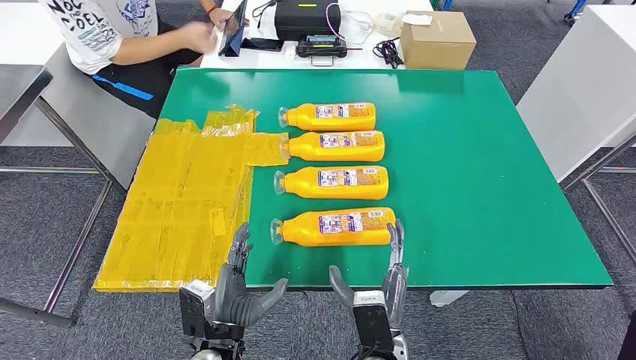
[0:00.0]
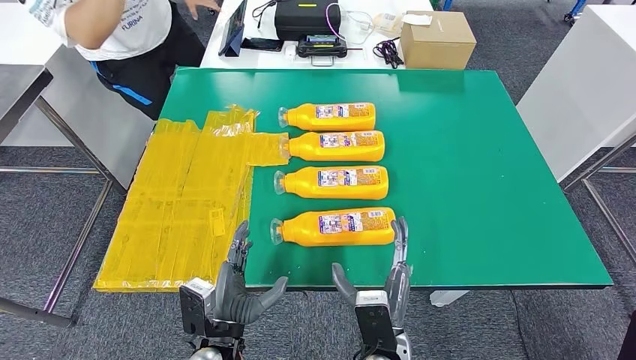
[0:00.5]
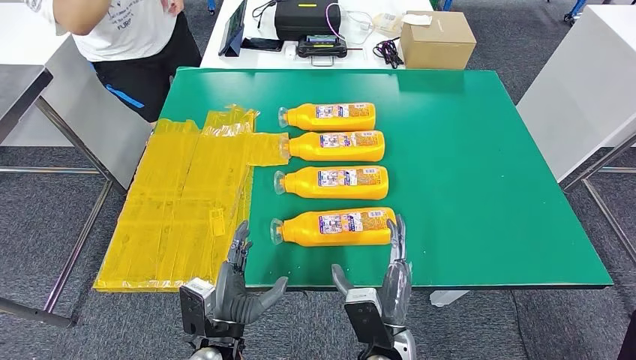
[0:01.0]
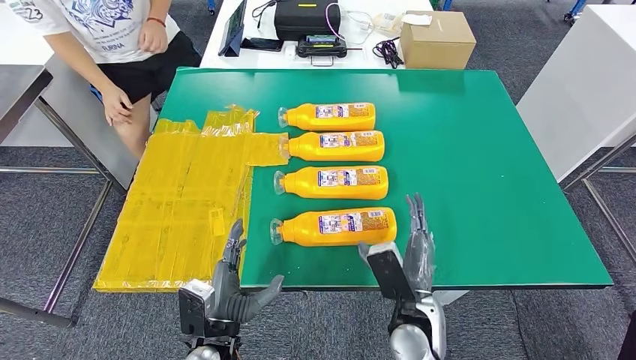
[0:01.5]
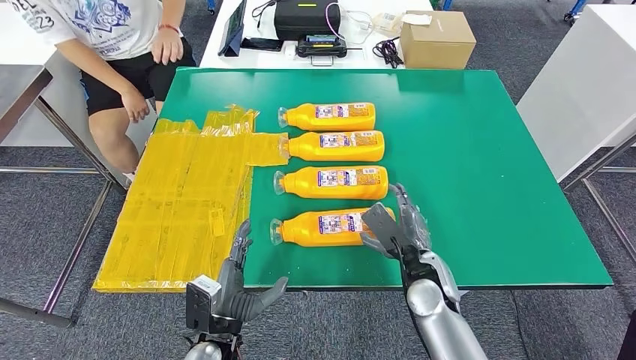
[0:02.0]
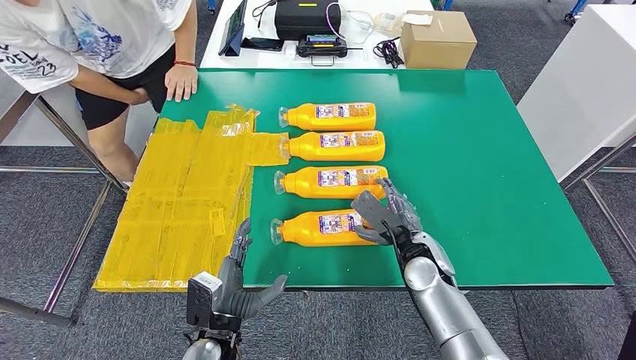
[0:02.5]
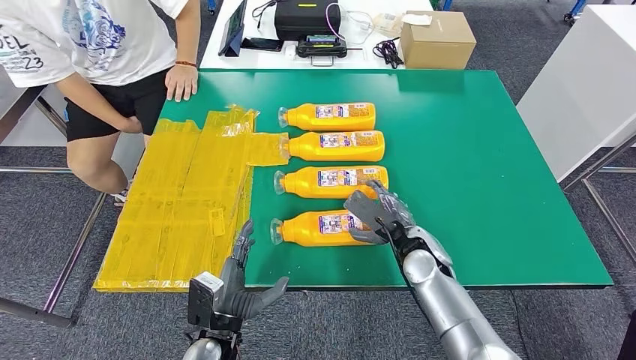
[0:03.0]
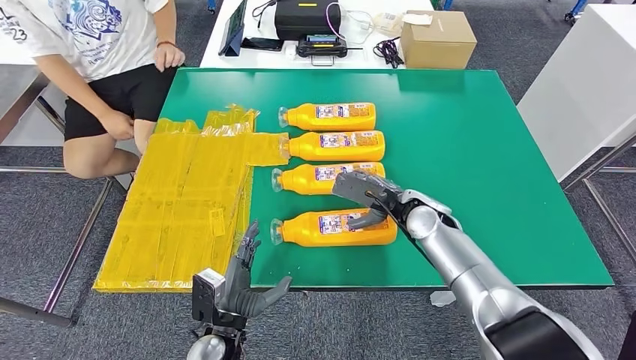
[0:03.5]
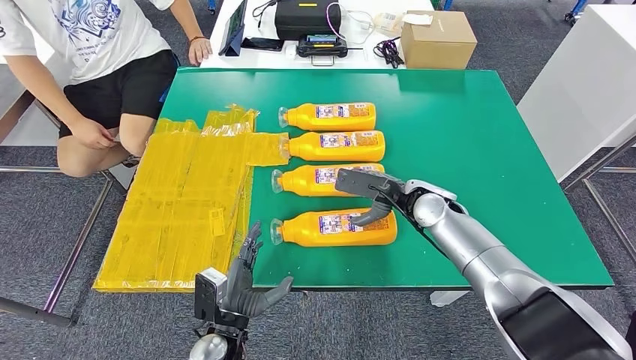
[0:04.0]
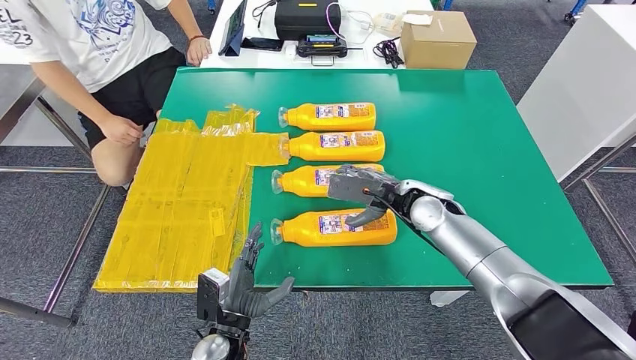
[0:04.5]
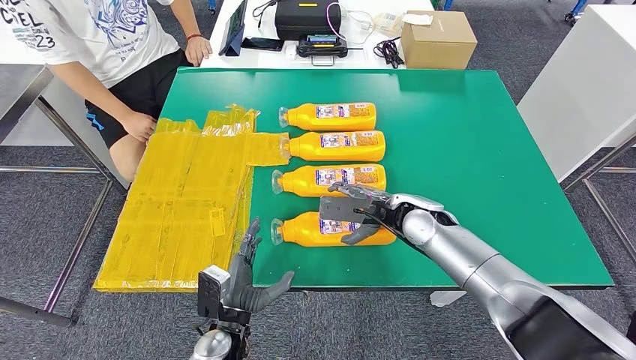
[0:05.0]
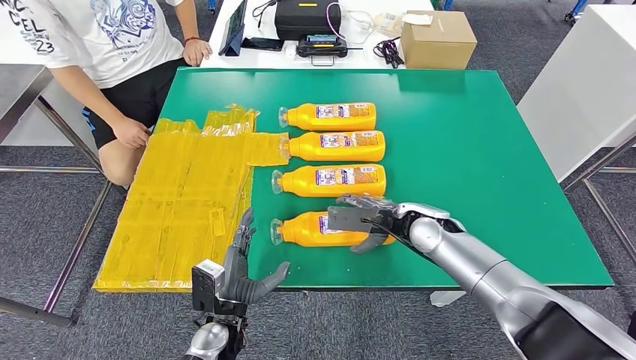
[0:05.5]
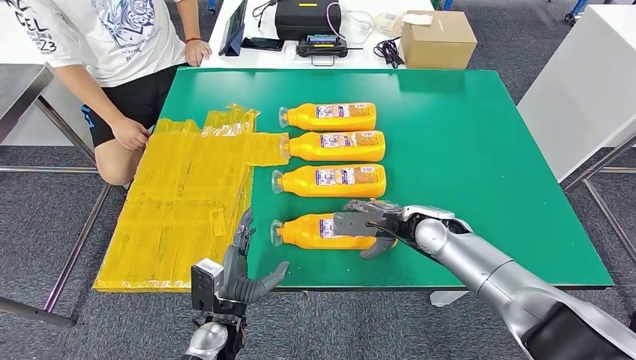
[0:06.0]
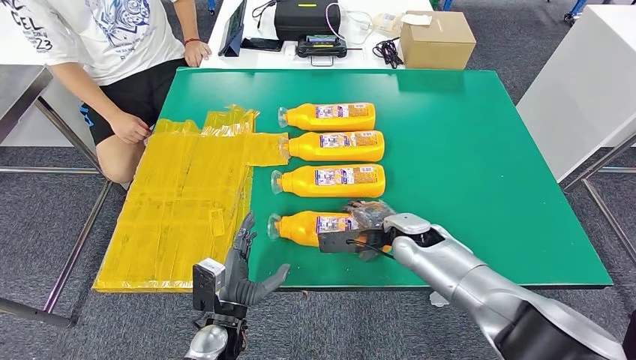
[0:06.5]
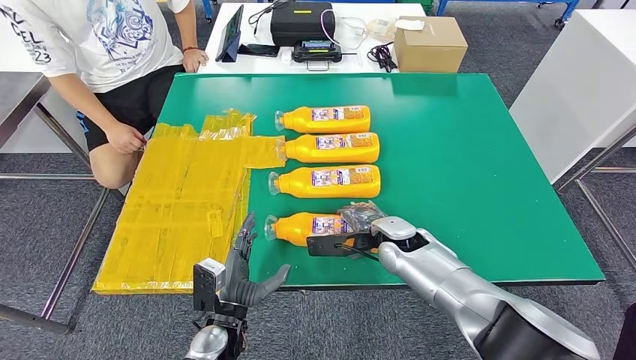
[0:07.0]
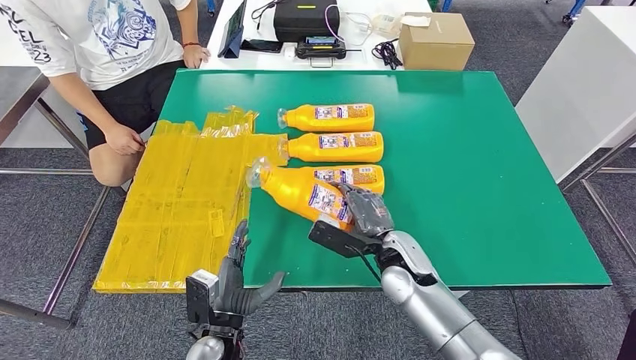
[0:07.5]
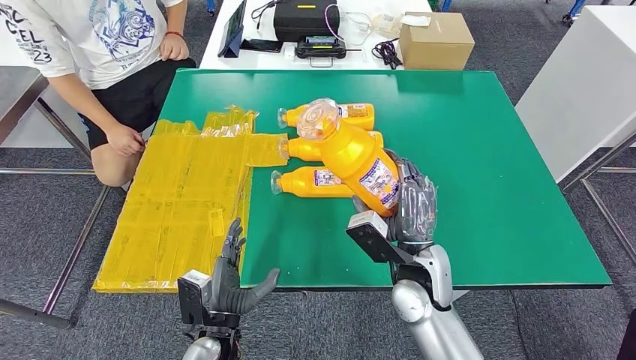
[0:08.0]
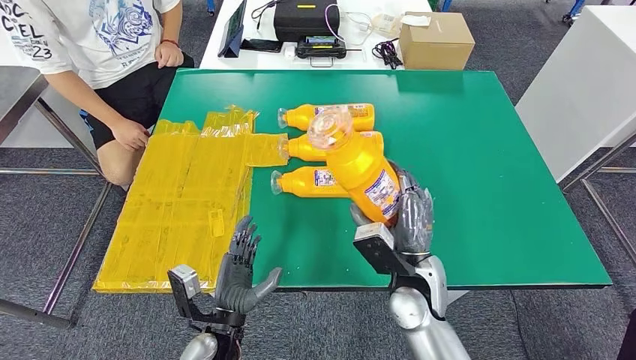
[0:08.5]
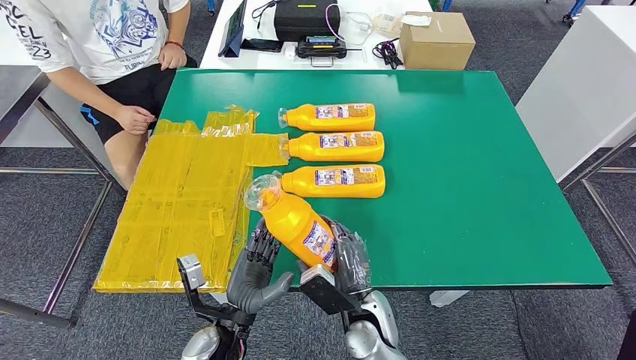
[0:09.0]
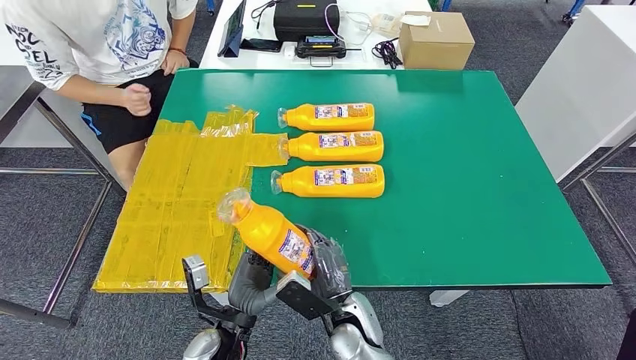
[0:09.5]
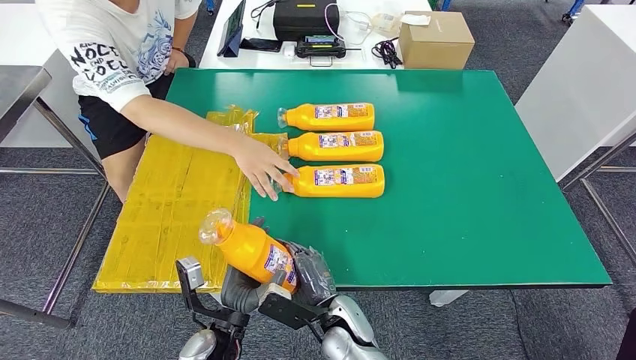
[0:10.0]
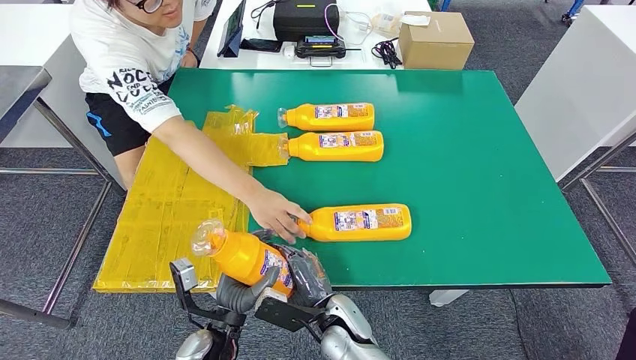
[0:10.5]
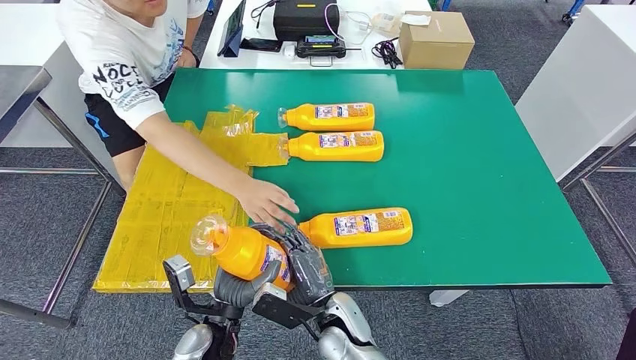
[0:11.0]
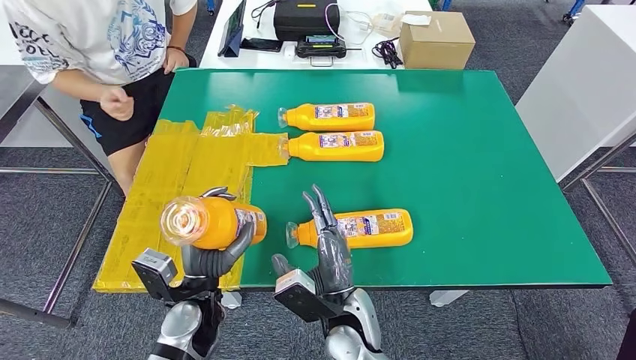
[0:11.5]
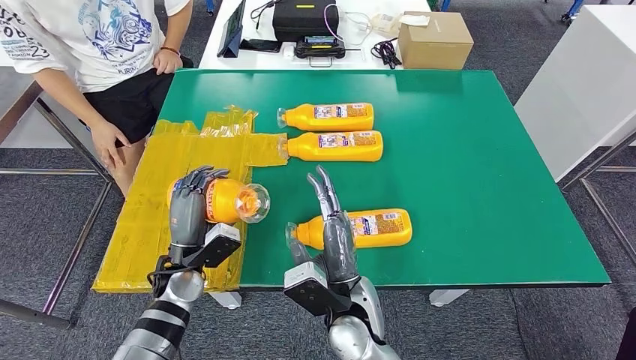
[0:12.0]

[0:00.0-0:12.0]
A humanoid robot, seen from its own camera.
Step, 0:00.0 to 0:09.0: Take the fast-moving consumer goods bottle from the table.
0:04.0 to 0:06.0: The hands move only a little.

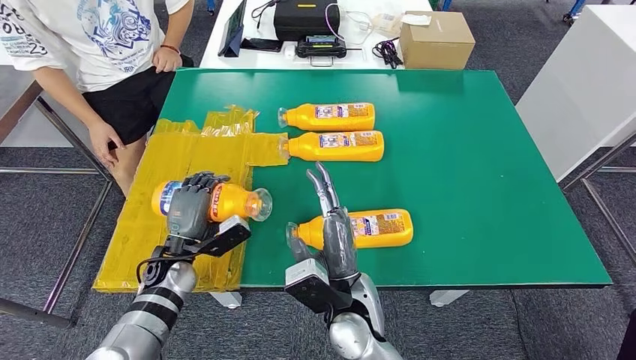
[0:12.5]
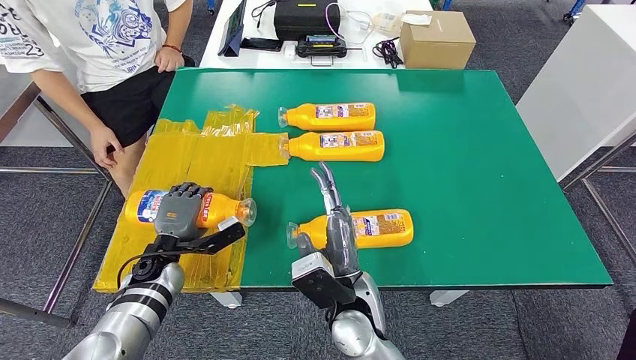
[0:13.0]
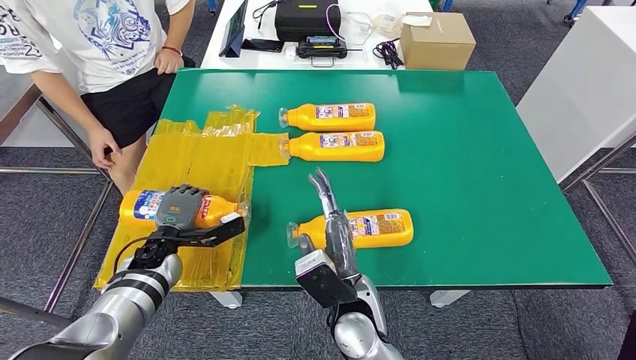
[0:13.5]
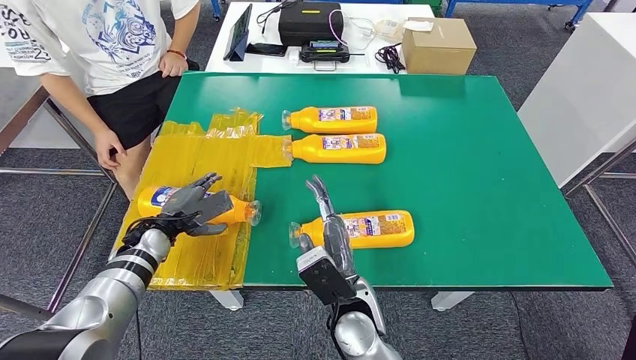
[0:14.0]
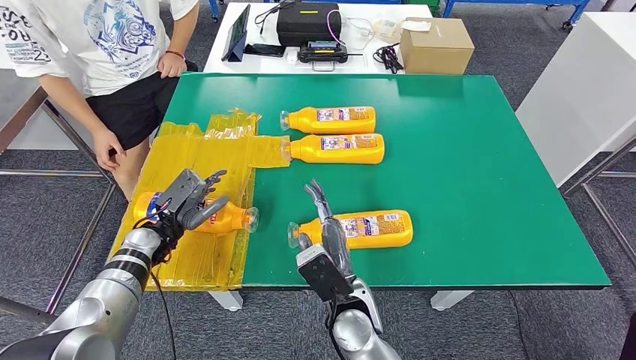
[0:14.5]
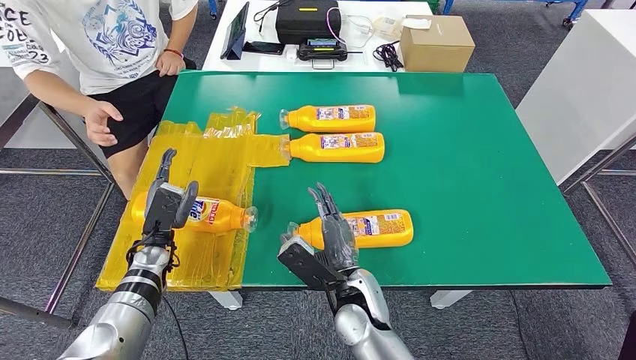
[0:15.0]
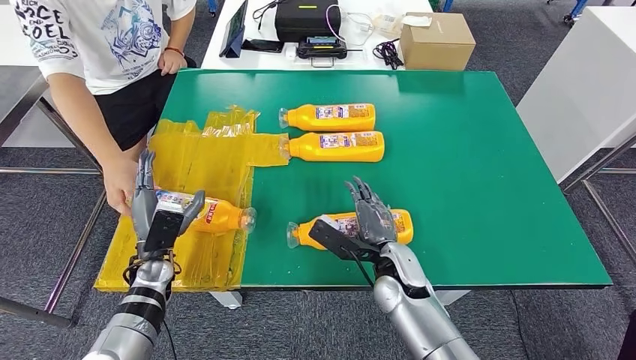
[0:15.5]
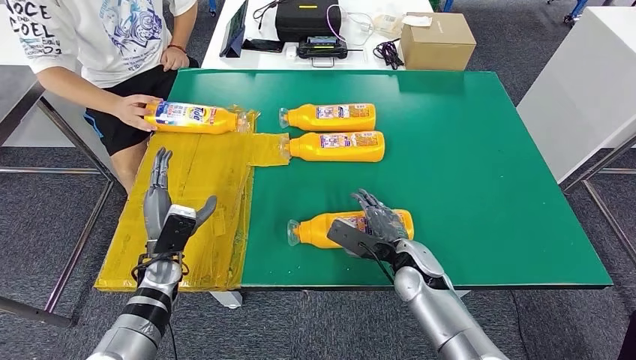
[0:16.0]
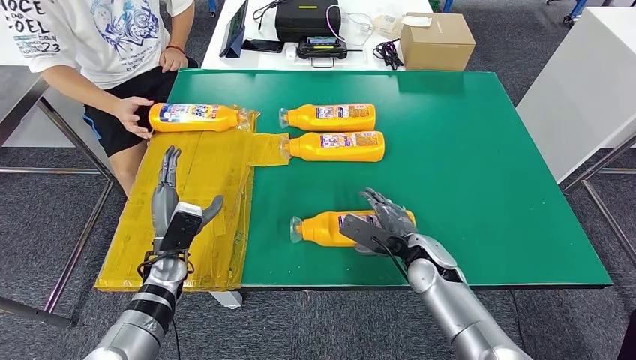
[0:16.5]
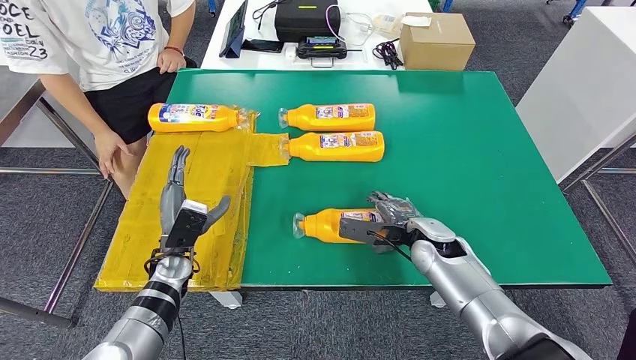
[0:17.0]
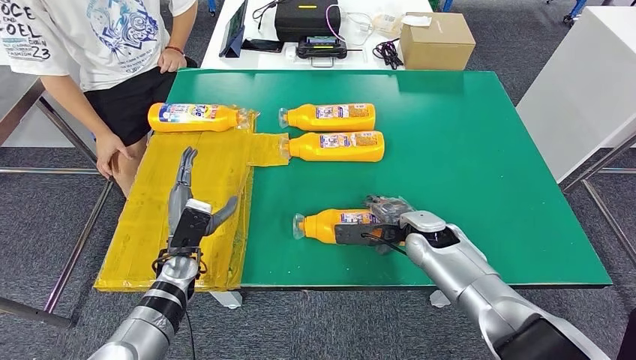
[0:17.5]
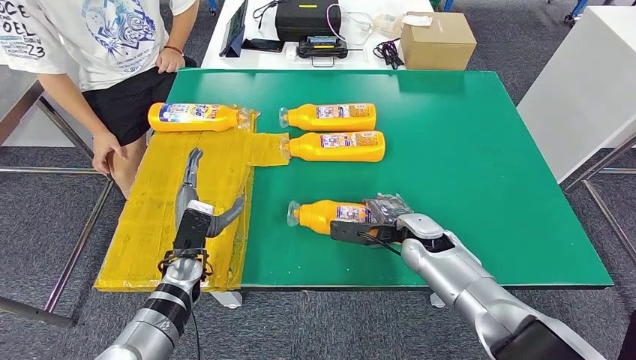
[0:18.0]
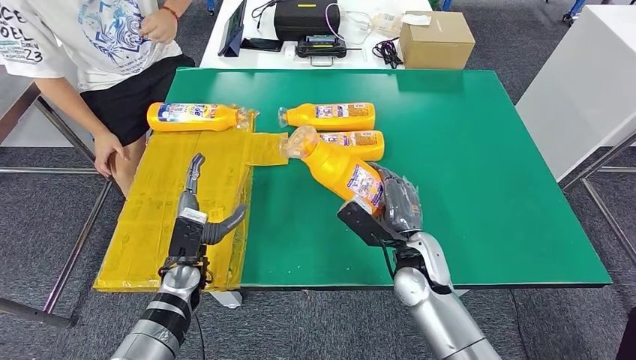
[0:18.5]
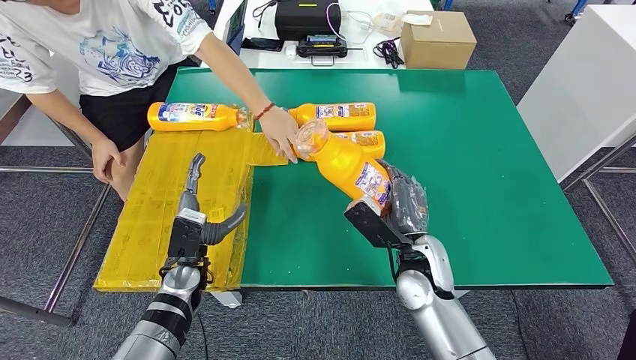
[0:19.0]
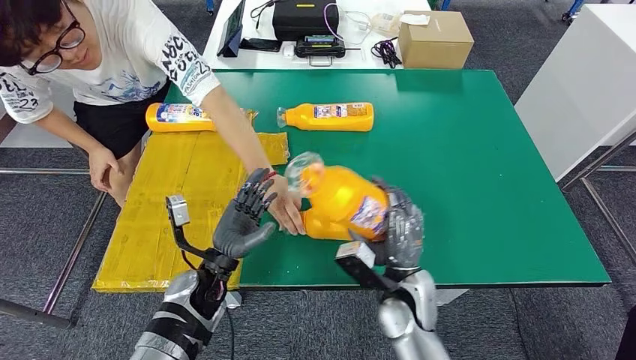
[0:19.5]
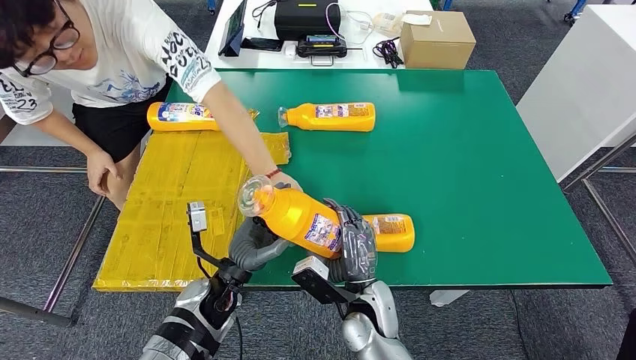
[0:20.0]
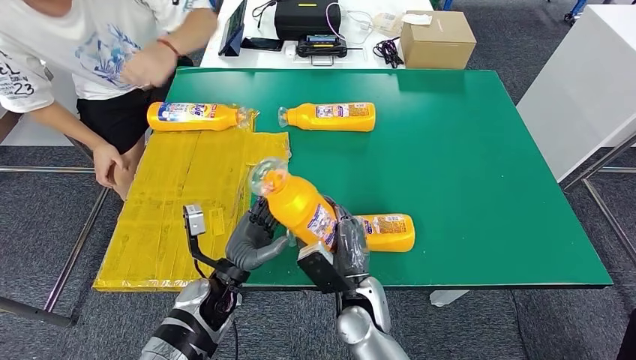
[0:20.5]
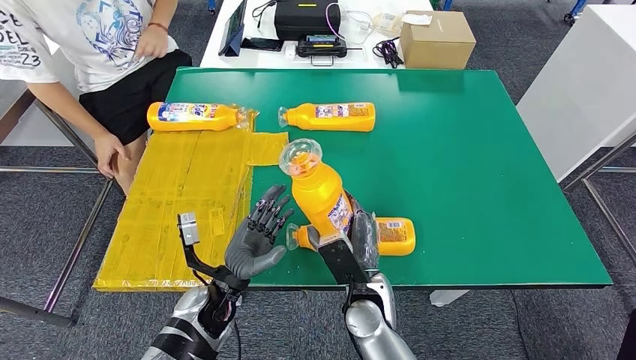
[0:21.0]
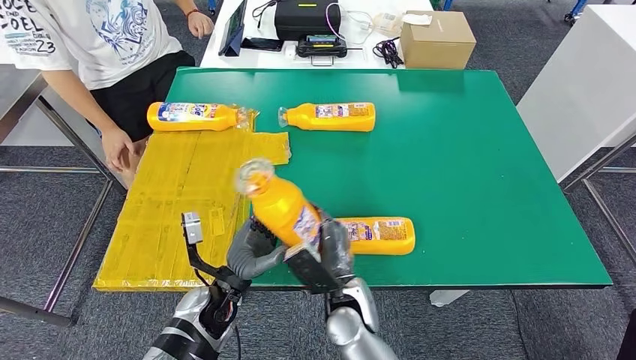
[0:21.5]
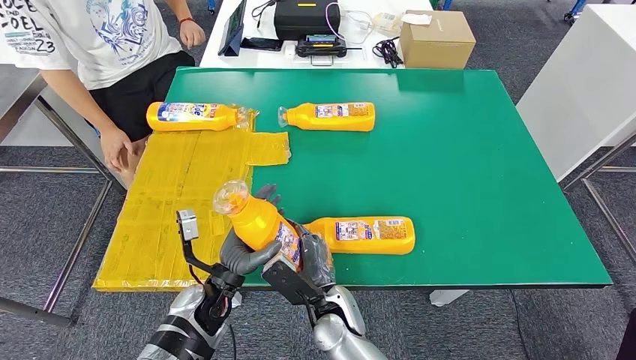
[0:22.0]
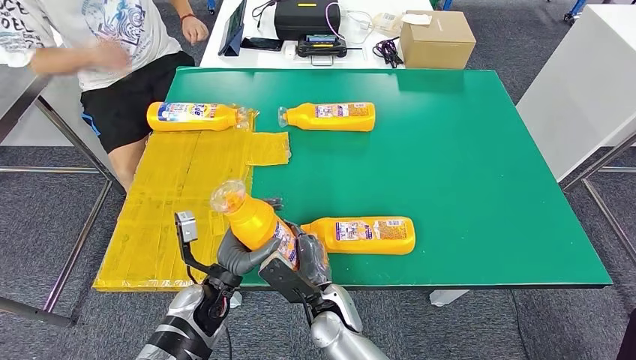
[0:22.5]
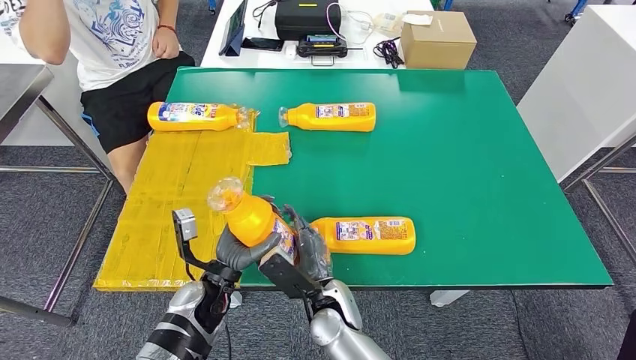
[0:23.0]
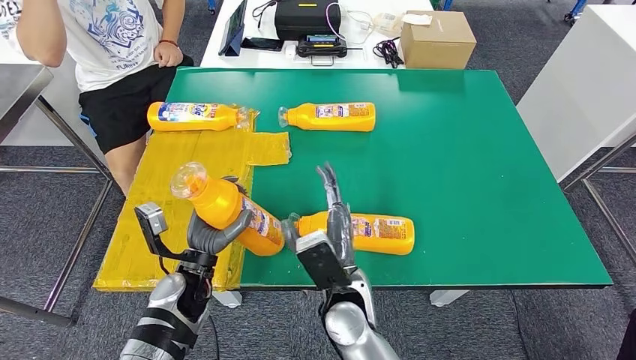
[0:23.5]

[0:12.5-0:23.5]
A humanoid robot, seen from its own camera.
Step, 0:12.5 to 0:15.5: Flip the fast-moving consumer goods bottle to the front side.
Step, 0:16.0 to 0:20.5: Pick up the fast-moving consumer goods bottle from the table.
0:16.0 to 0:18.0: The right hand heads forward, covering roughly 5 cm.
0:21.5 to 0:23.5: The right hand travels upward by approximately 5 cm, while the left hand heads to the left, covering some 5 cm.
